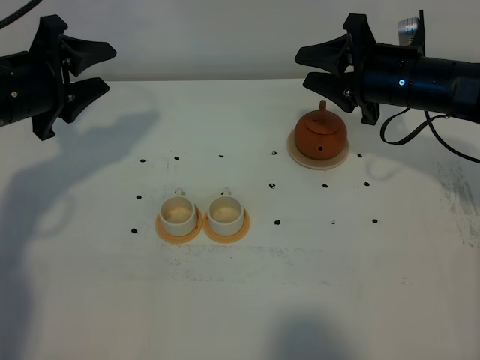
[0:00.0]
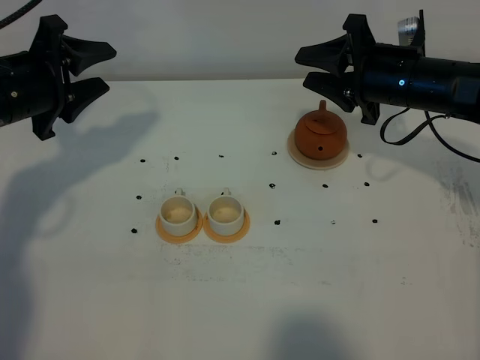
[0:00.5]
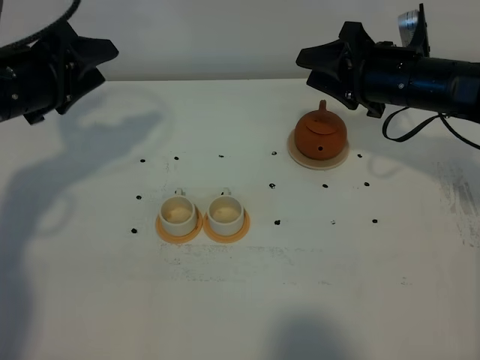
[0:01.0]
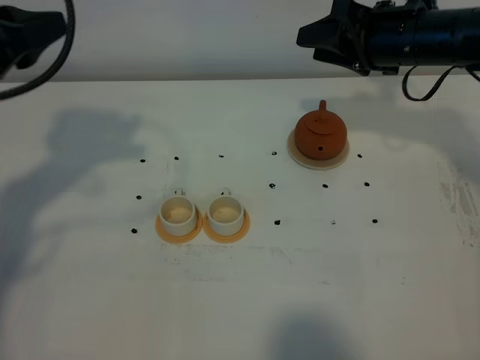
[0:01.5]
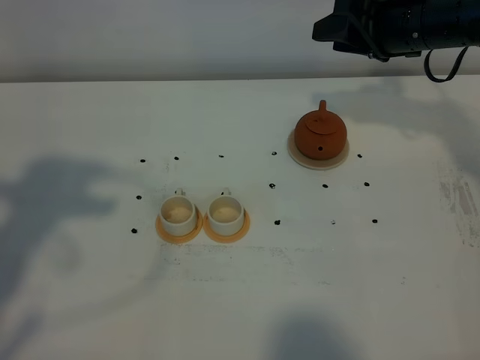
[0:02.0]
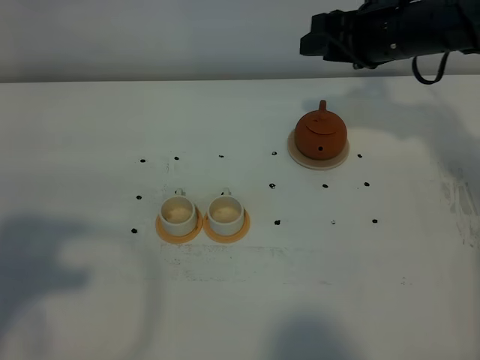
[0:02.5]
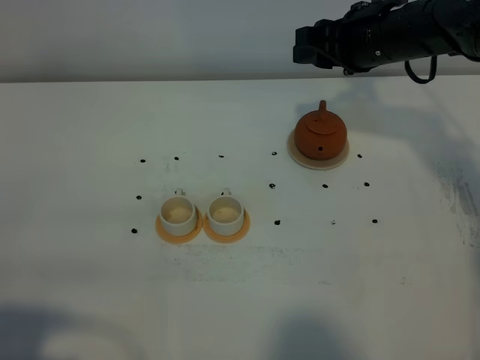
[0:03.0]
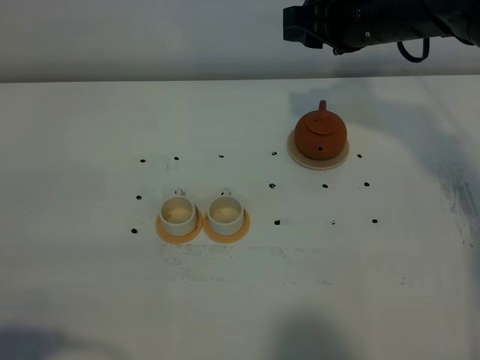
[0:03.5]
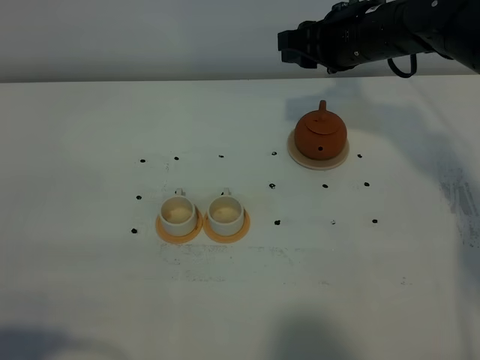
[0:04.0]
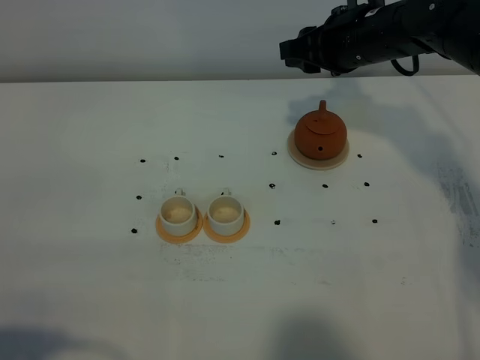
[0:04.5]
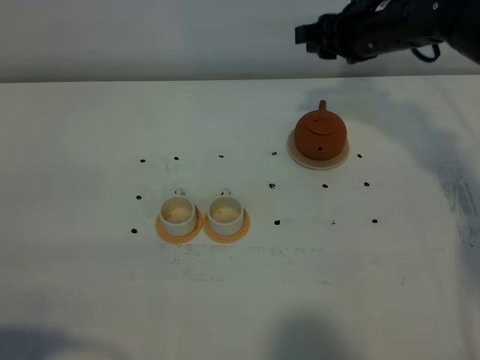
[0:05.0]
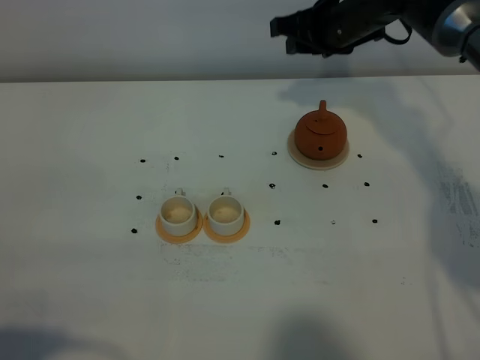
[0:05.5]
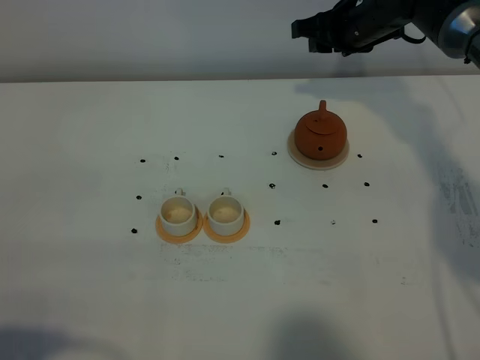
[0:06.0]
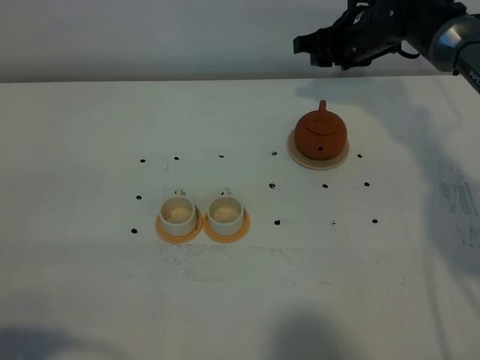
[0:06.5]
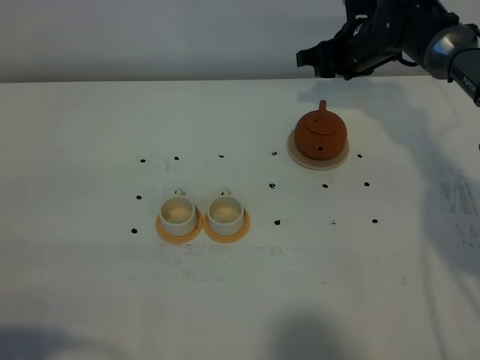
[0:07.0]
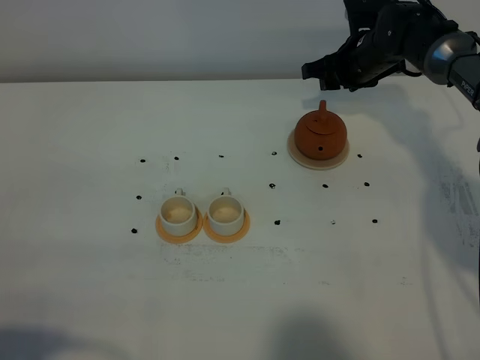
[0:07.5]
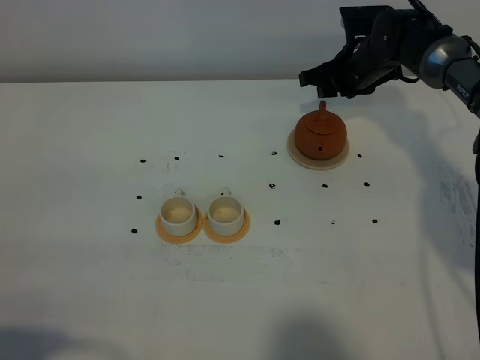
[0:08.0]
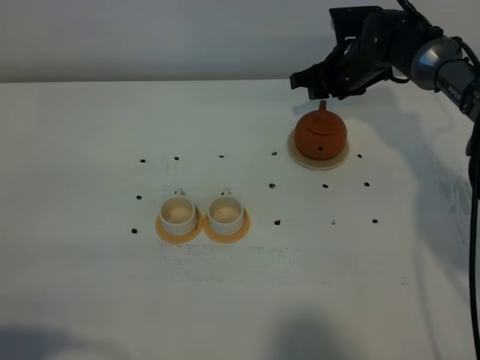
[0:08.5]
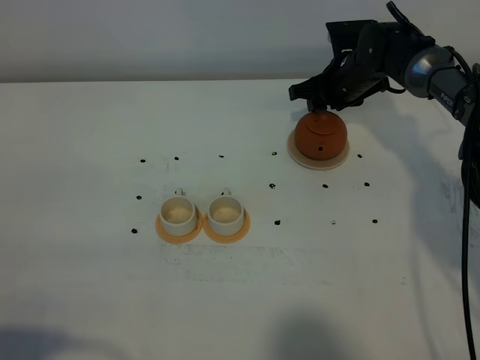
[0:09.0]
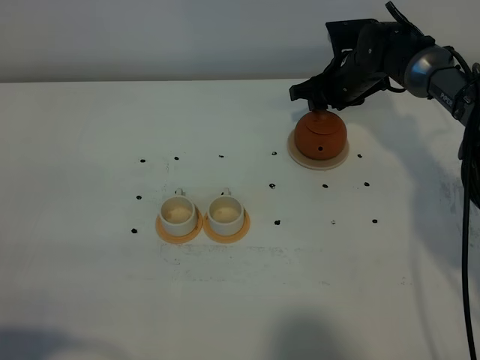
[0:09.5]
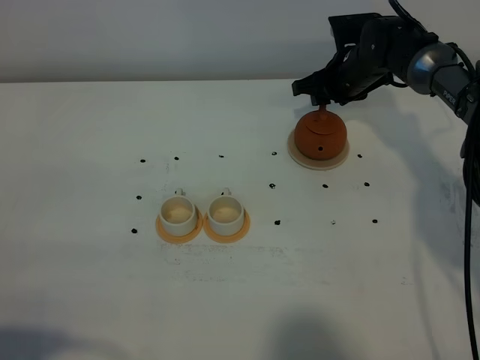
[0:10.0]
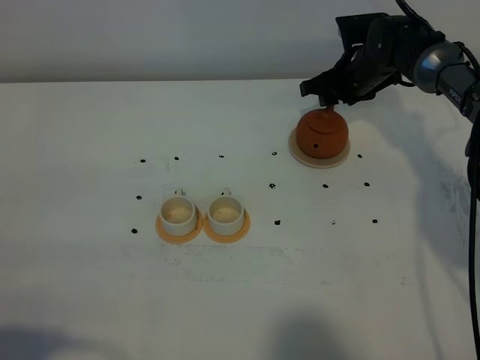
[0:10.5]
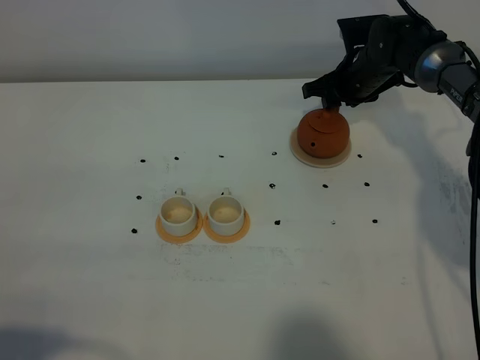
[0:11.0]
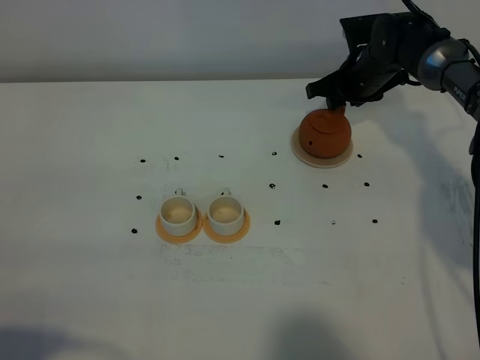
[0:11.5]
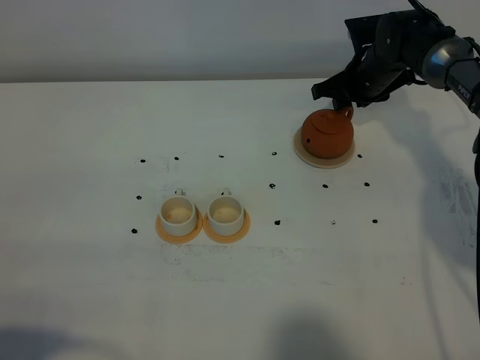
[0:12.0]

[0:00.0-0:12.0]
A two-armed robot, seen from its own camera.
Task of the whole recording: grasp the brown teapot and pour the tea into the two white teacups one by one, put the brown teapot back in its original place.
0.0 to 2.0 s: The left gripper travels backward and upward by approximately 25 cm, and closes its fingers; the right gripper travels upward by approximately 5 cm.
2.0 to 4.0 s: The right gripper moves to the left, roughly 5 cm. Meanwhile the left gripper moves backward and downward, about 20 cm.
4.0 to 6.0 s: The right gripper moves forward, about 10 cm.
6.0 to 8.0 s: The right gripper goes about 10 cm downward.
8.0 to 12.0 s: The grippers move only a little.

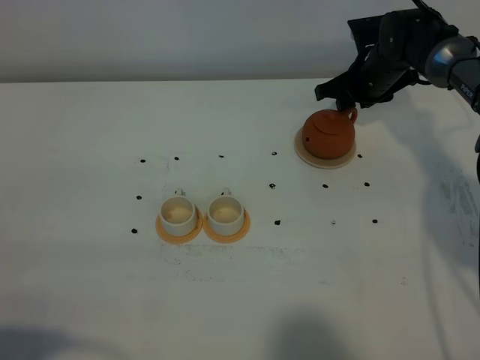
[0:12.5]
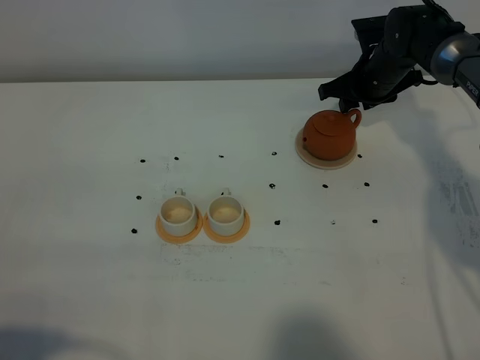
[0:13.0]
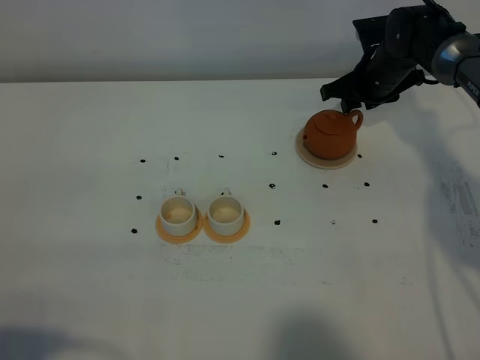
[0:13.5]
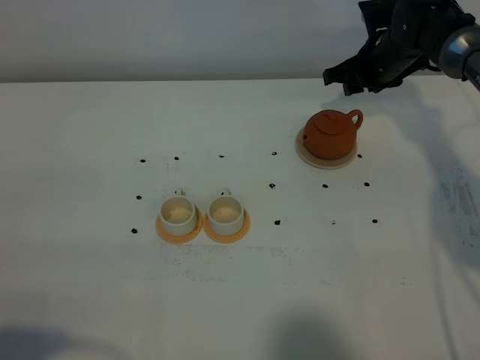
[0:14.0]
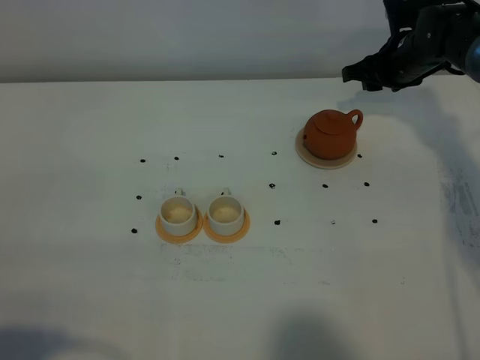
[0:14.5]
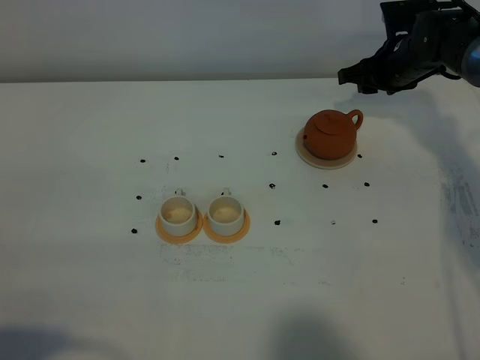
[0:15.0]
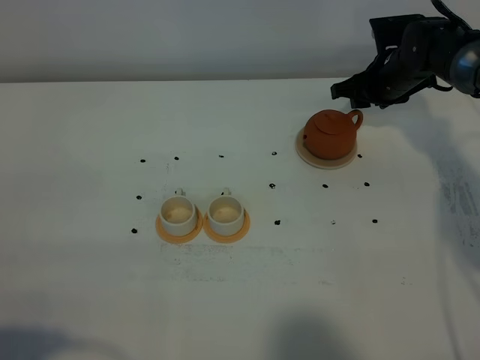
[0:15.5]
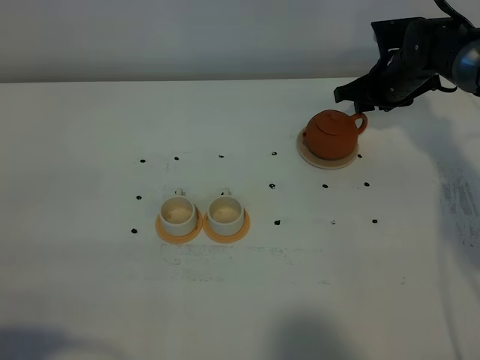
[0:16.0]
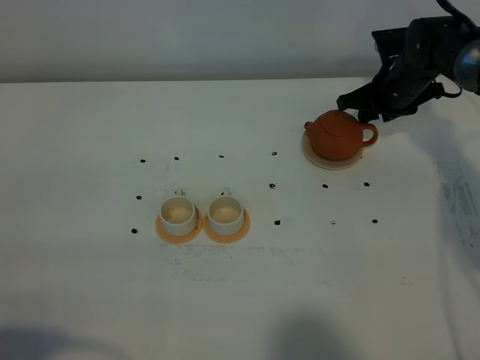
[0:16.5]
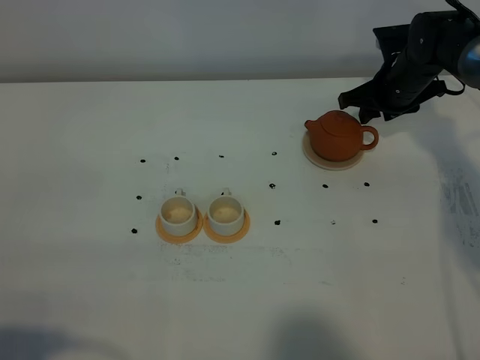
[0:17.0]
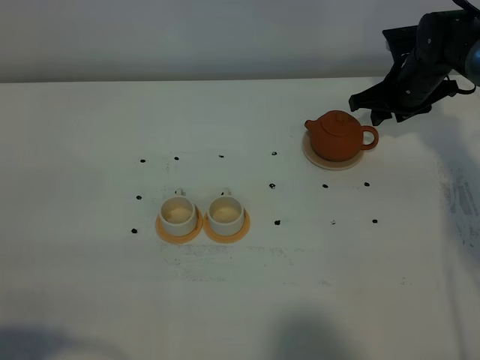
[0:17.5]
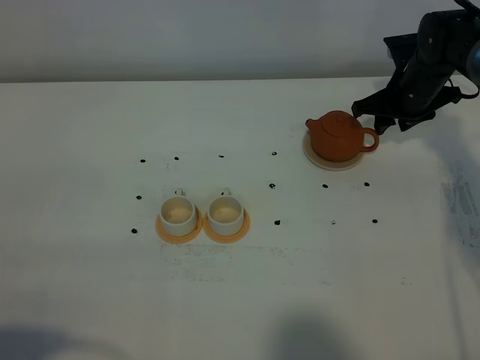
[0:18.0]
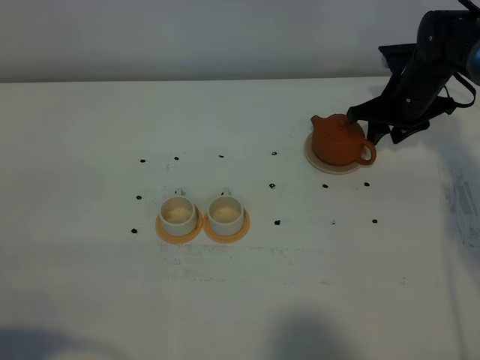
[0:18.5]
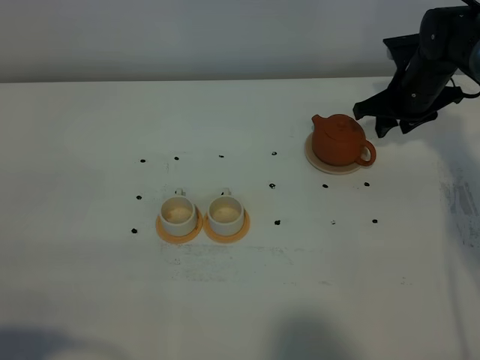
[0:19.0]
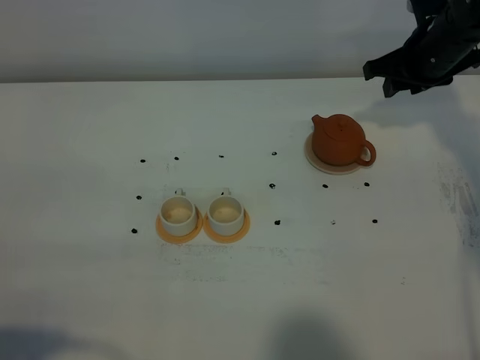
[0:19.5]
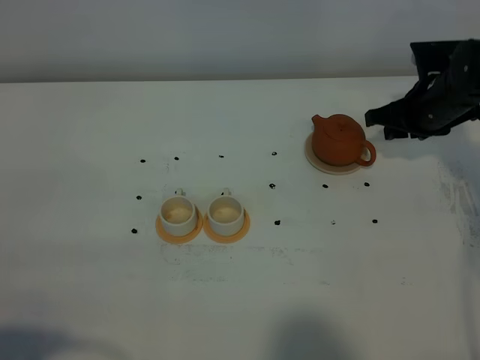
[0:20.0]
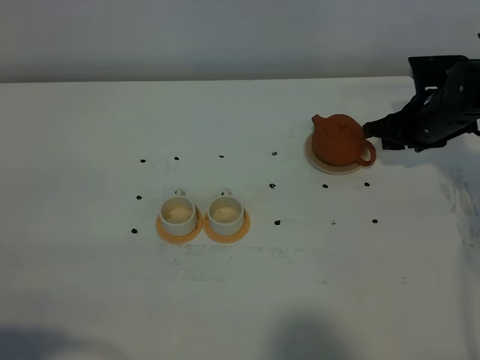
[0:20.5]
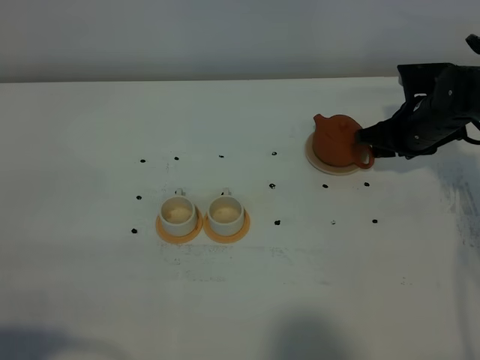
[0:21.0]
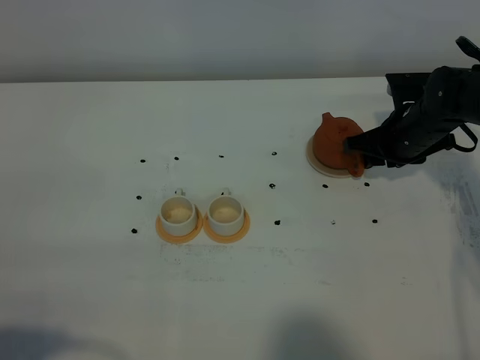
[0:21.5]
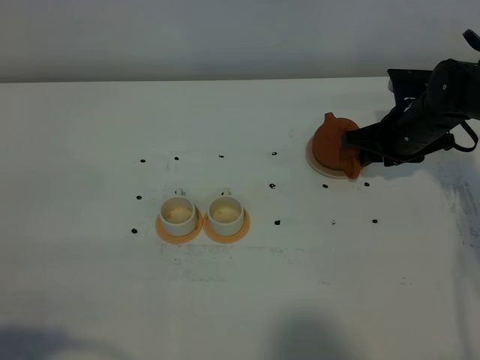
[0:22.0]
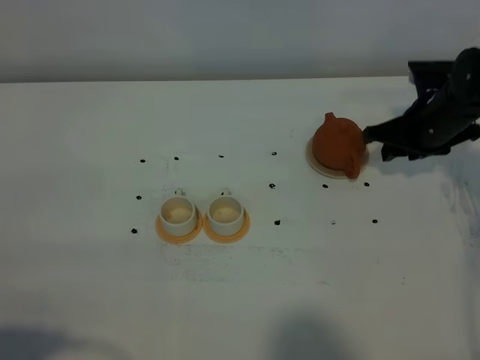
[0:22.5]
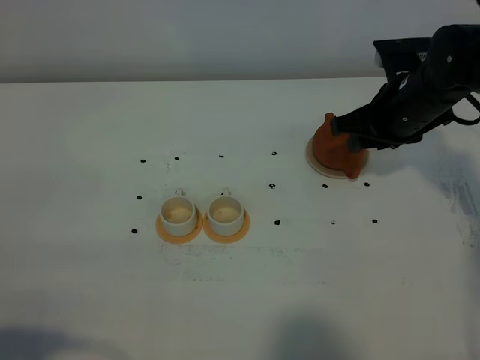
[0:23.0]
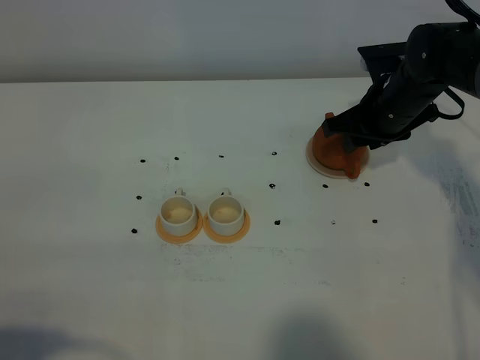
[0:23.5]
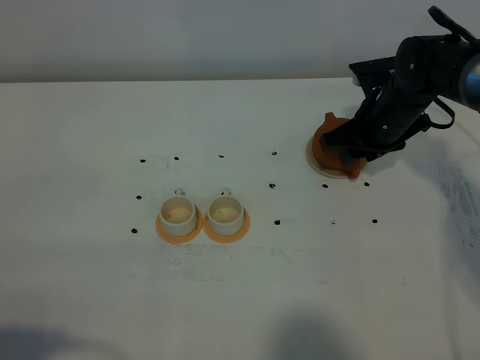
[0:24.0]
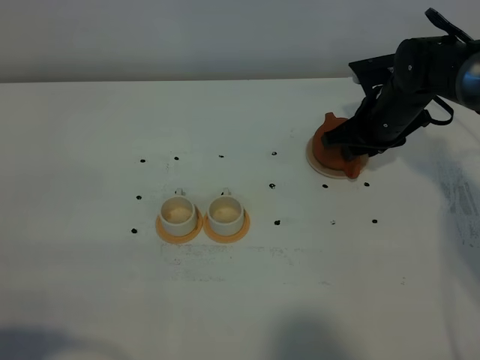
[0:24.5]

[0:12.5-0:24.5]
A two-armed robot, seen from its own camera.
Task of the whole recording: grasp the brown teapot and pour the tea into the two white teacups one by one, put the brown teapot back in its original place.
12.5 to 18.5 s: The grippers stay close to where they were, moving slightly.
18.5 to 20.5 s: The right gripper moves approximately 5 cm upward and comes back.
20.5 to 22.5 s: The grippers move only a little.
22.5 to 24.5 s: The right gripper shifts some 5 cm to the left.

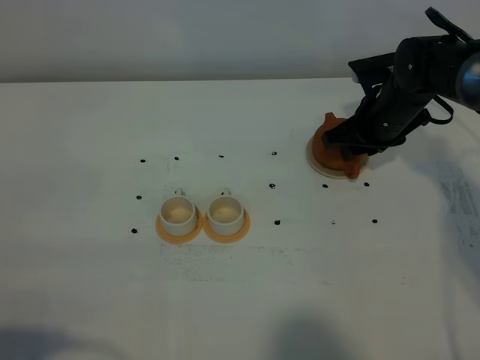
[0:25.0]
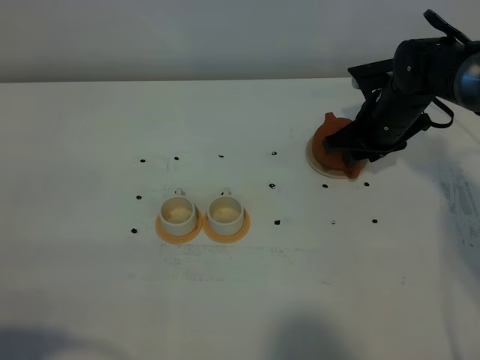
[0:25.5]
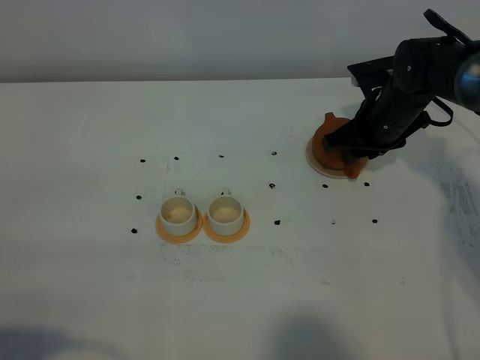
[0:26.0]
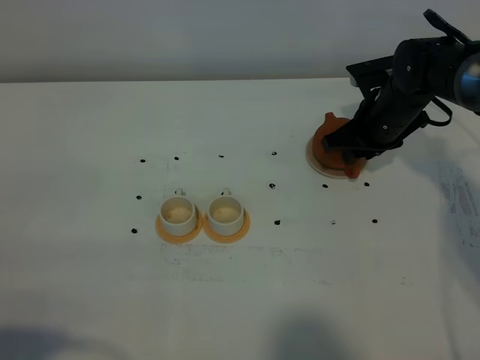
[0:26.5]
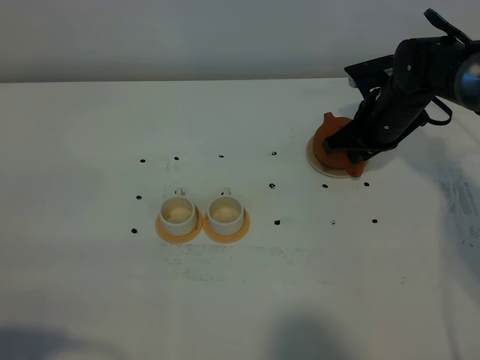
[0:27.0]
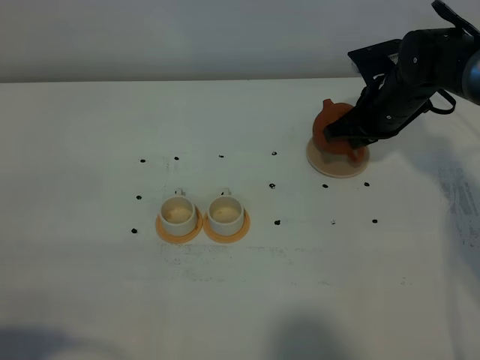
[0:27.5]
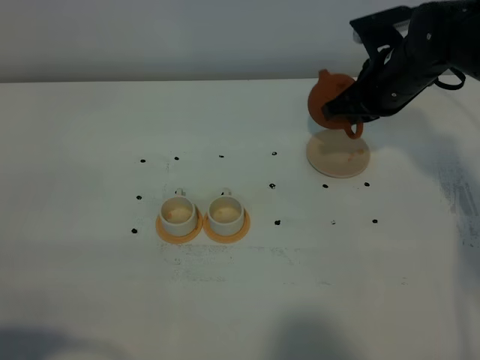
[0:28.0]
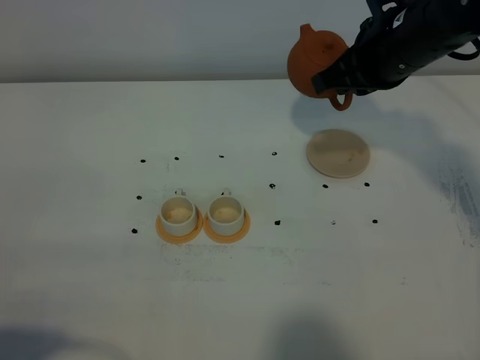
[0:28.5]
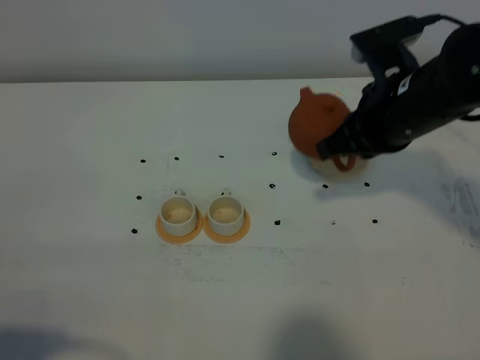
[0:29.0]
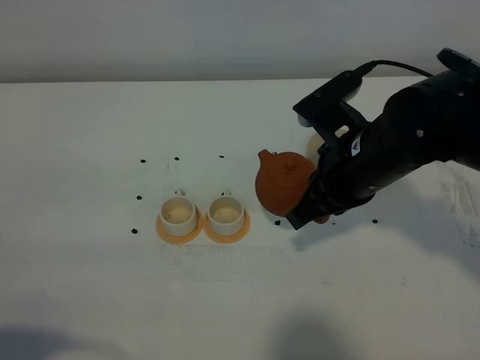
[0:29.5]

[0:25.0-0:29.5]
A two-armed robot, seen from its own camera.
Task of the whole recording: grasp the brown teapot and pour the tea into the two white teacups one by one, put the brown teapot back in its original place.
Step, 25.0 to 27.5 s: Pick up the teapot with the right gripper.
25.0 to 27.0 s: The right gripper closes its fingers.
27.0 to 29.5 s: The right gripper shifts about 20 cm backward and upward.
